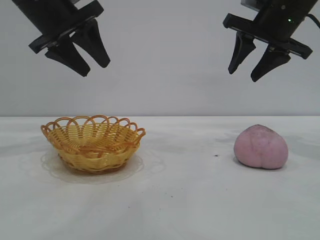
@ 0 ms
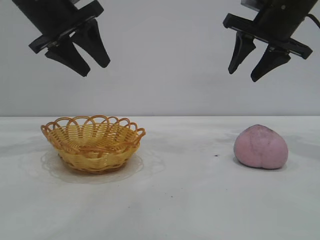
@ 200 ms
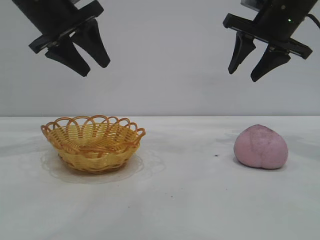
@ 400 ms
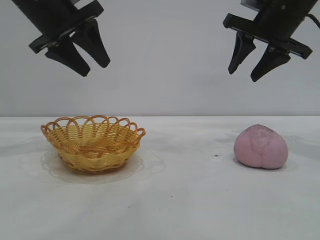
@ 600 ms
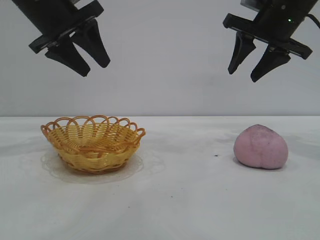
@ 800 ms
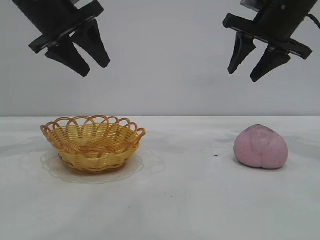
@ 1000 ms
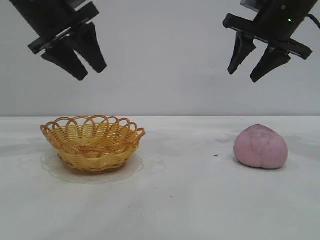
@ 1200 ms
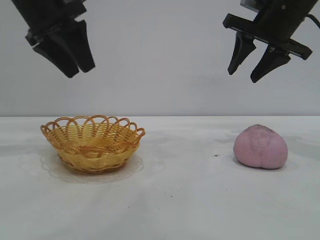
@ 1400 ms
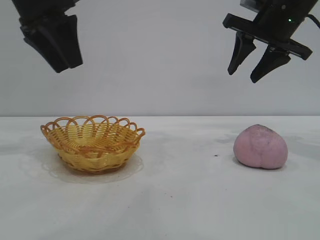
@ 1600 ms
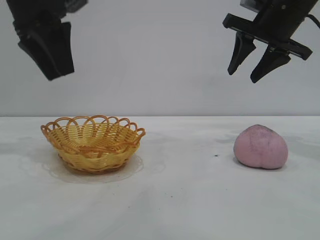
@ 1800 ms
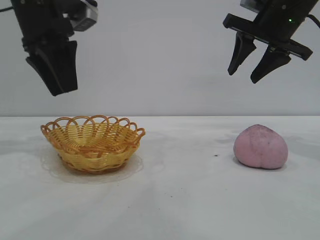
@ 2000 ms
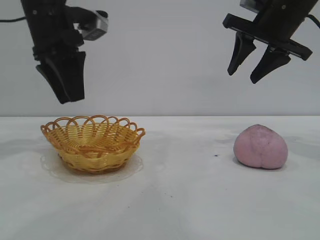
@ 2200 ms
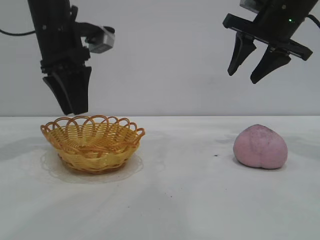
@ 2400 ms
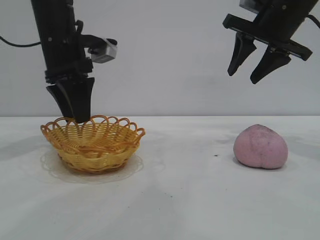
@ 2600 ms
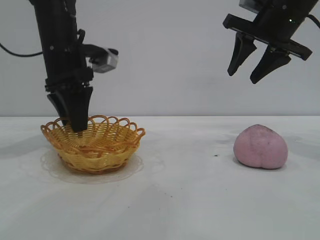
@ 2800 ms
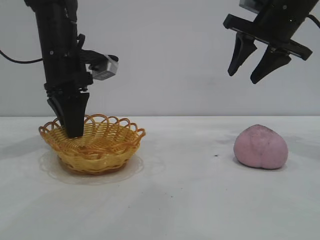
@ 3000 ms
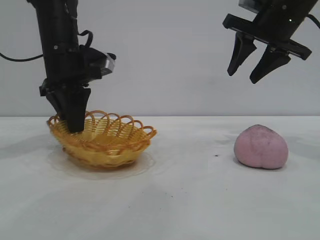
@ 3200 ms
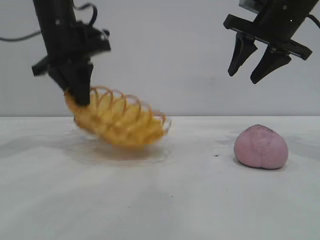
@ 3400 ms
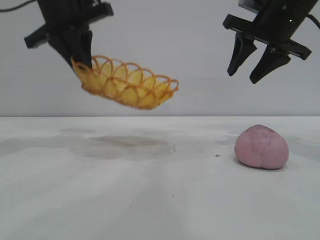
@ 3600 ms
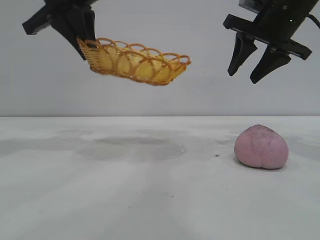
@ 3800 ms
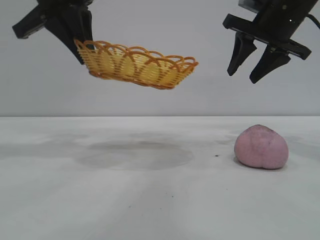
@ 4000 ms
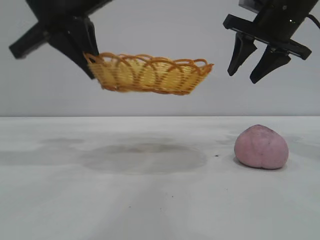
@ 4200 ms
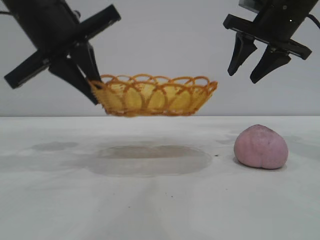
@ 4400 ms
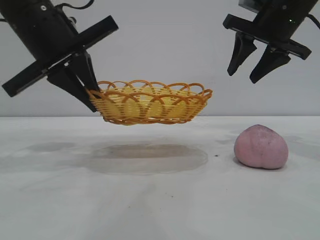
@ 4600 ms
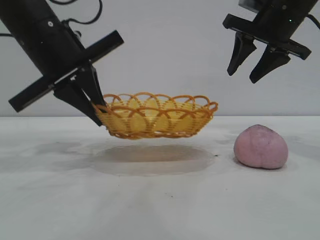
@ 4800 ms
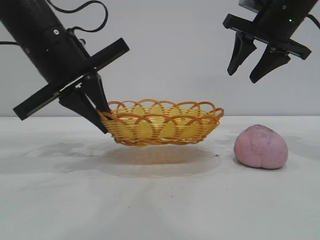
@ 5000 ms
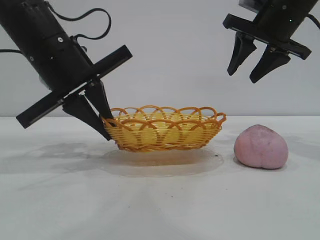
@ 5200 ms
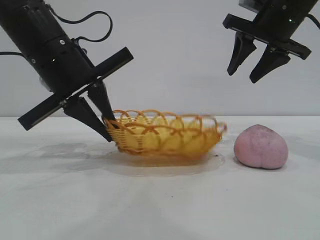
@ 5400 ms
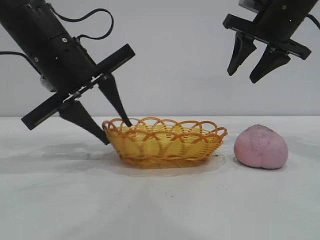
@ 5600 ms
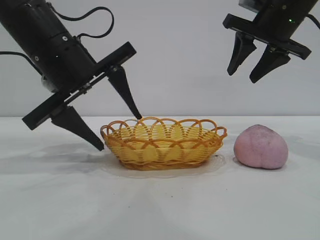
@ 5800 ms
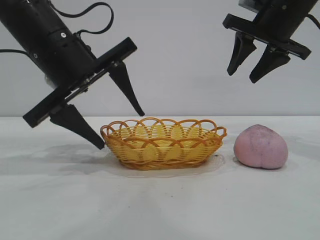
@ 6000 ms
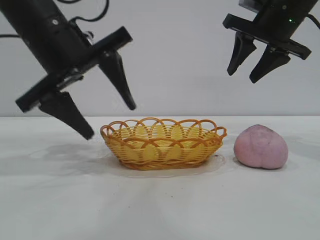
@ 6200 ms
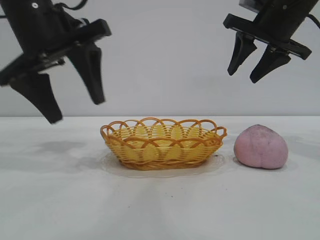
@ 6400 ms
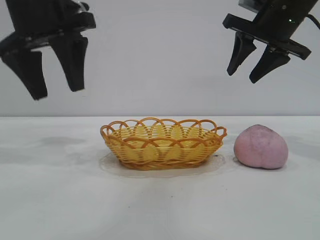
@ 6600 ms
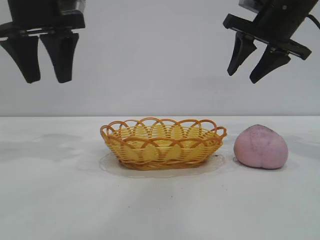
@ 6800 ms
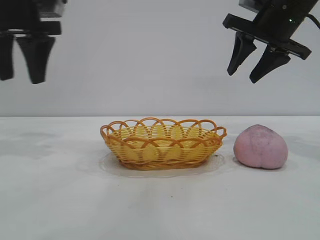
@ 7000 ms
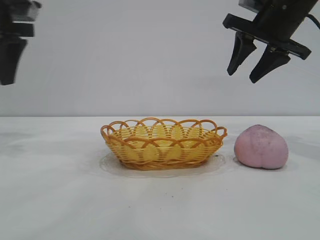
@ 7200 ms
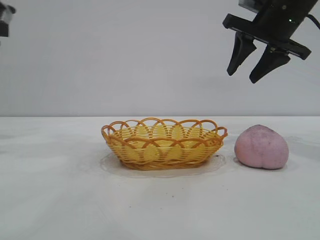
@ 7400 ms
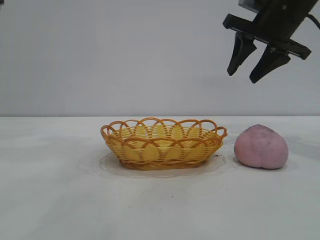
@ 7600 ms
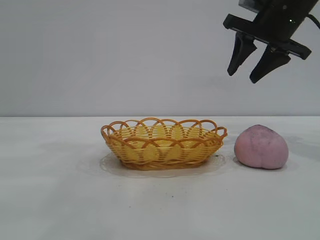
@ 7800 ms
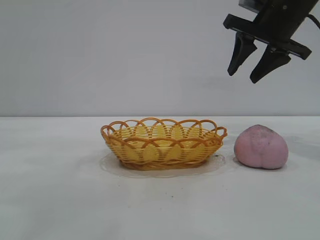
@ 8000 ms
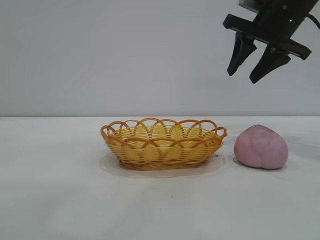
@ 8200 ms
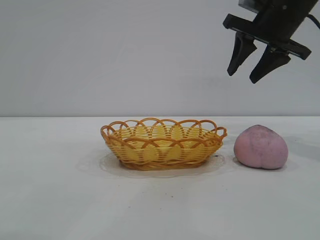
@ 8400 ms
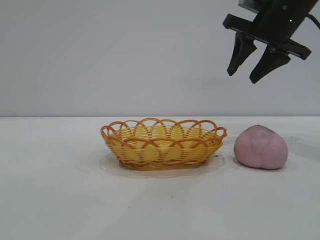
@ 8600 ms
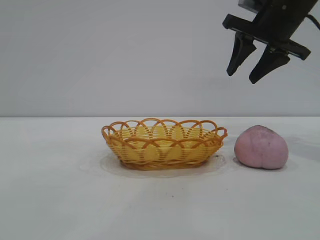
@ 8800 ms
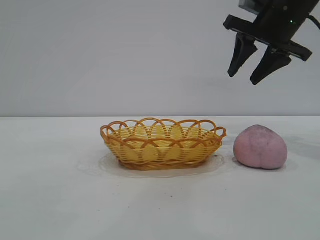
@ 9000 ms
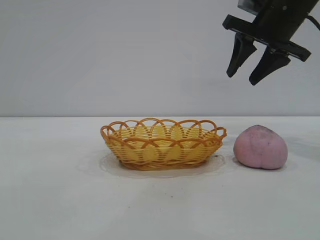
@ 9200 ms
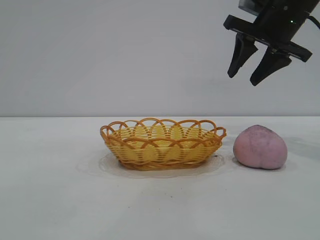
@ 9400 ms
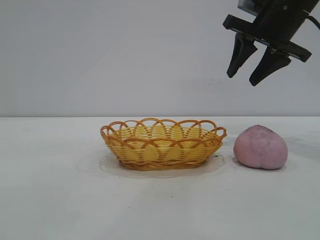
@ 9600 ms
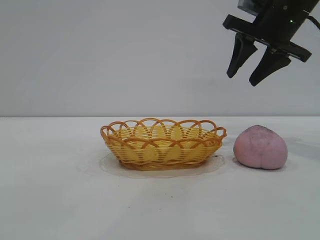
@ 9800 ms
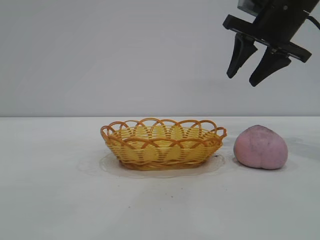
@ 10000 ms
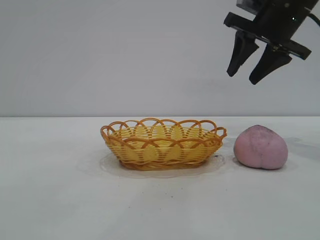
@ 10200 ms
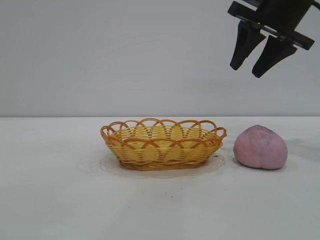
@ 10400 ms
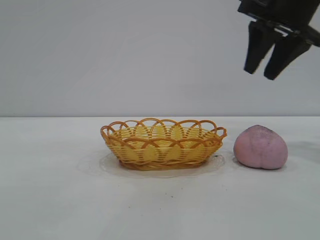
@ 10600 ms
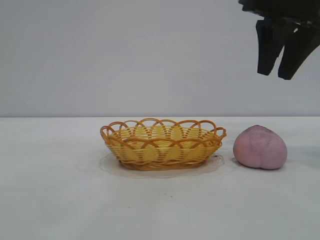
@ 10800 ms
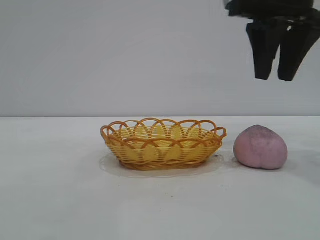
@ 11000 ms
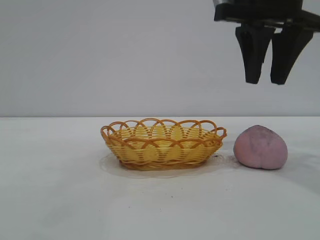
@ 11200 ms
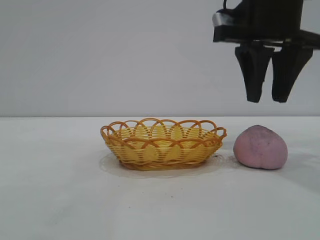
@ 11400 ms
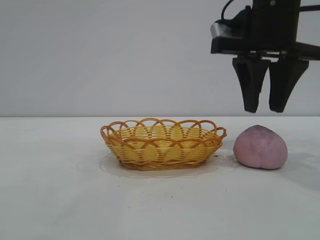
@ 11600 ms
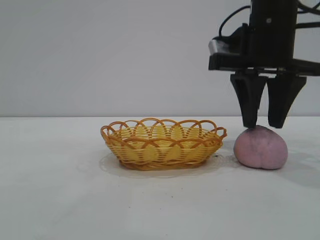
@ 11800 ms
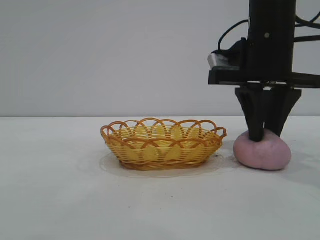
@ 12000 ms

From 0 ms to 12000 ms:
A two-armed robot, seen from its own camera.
Task of the whole recording: pick up the peach and put it into the basket.
Step, from 0 ms to 6400 ms: Move the basket to the center of view.

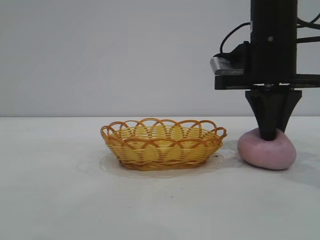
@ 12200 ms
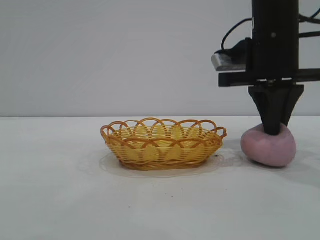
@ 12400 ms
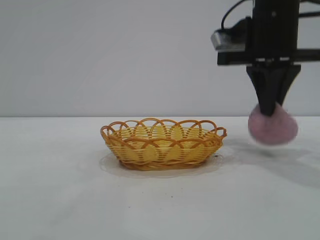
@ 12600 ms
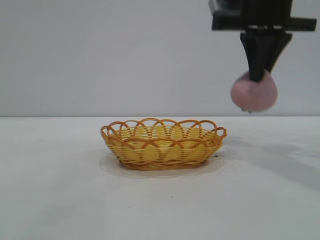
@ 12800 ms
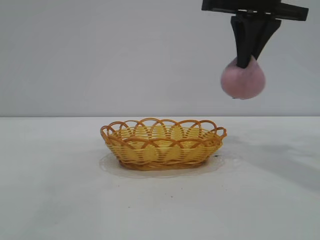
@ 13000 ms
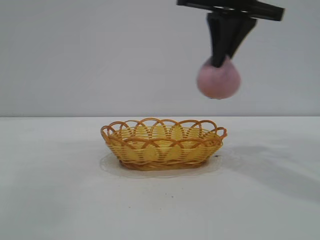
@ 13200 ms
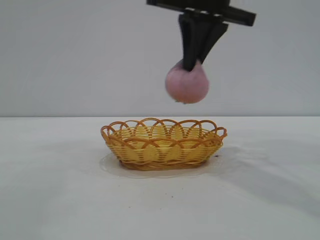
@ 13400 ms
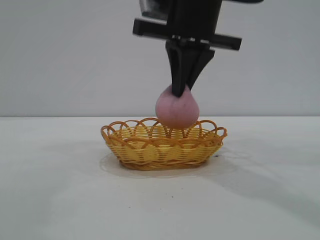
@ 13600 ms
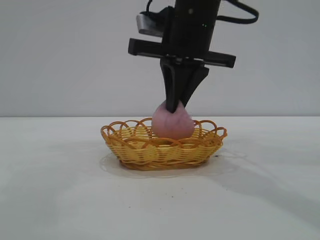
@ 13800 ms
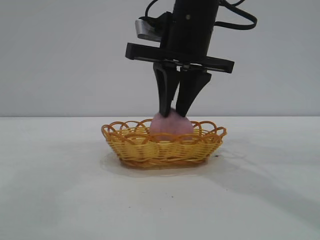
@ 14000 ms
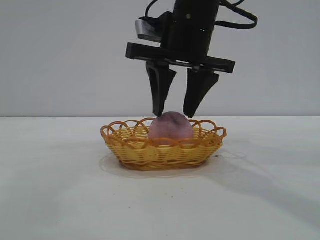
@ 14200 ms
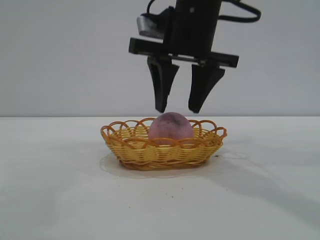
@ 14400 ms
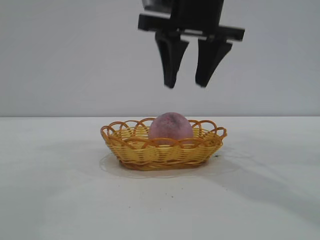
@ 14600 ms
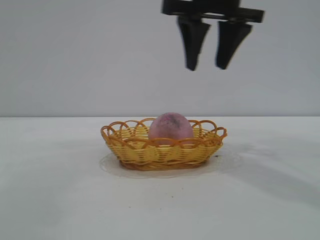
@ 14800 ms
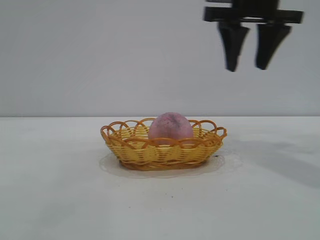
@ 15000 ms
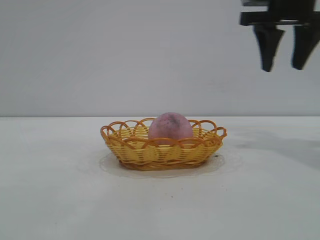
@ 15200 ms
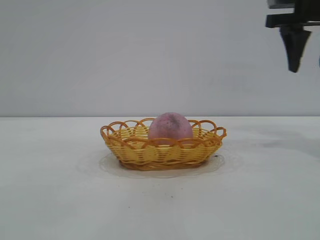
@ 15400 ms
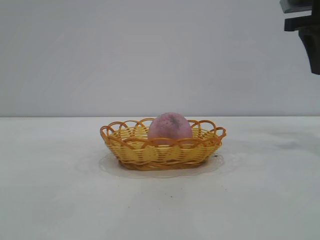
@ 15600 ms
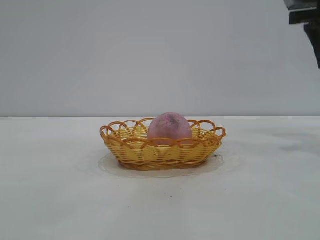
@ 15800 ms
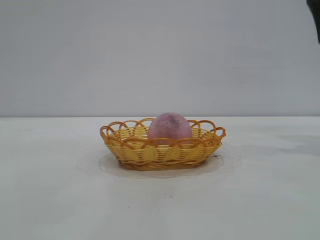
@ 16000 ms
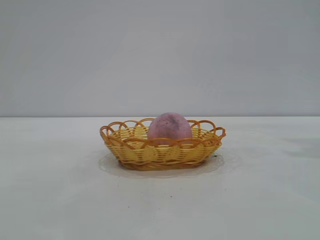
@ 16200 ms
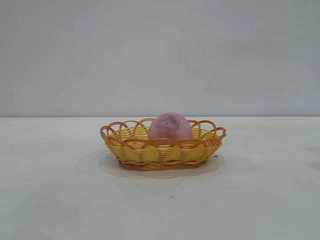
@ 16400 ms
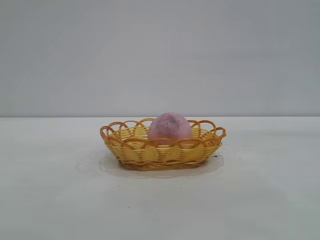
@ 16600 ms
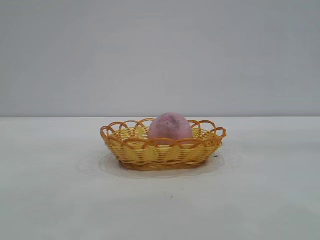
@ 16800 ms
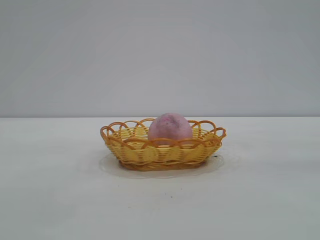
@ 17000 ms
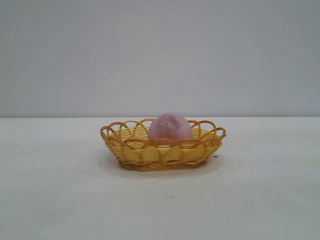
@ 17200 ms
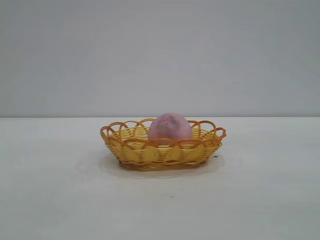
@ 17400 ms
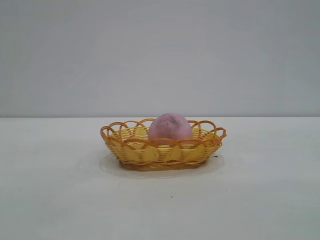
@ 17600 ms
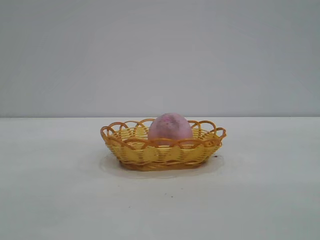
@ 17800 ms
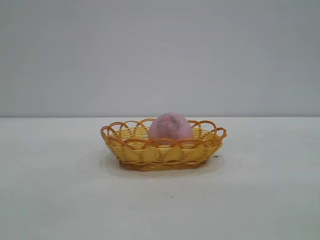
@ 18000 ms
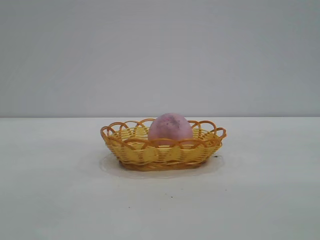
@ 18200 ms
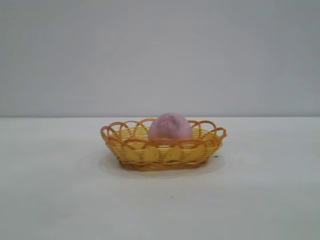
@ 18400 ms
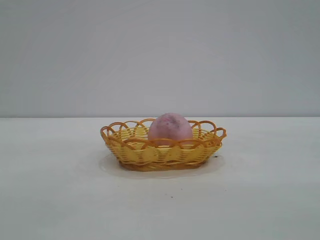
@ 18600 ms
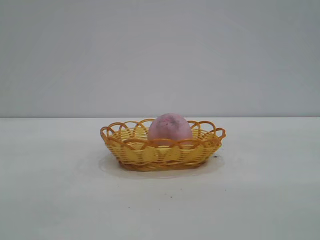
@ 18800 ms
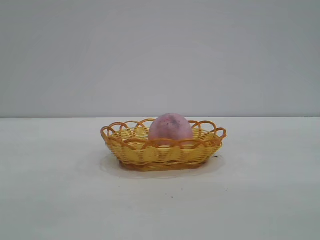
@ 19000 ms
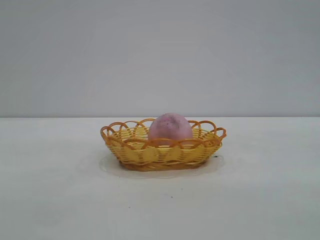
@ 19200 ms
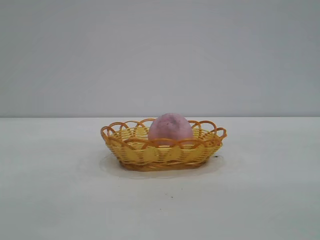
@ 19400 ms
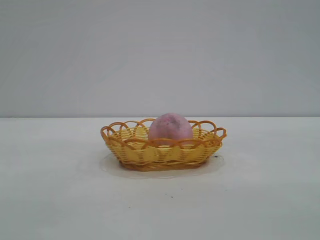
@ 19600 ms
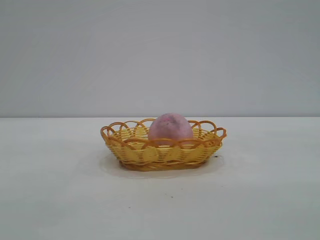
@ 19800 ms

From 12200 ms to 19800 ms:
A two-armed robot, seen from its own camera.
Task of the whole recording: pick up the peach and put it into the basket.
Step, from 12800 ms to 14400 ms: place the peach into the basket.
